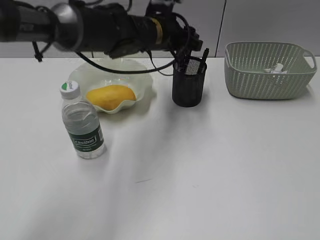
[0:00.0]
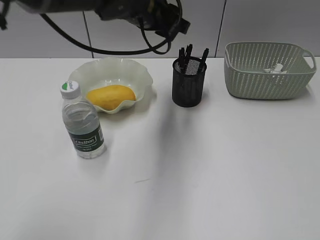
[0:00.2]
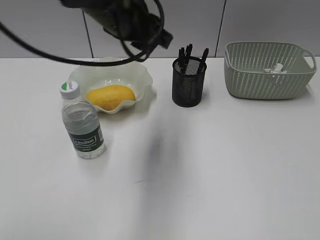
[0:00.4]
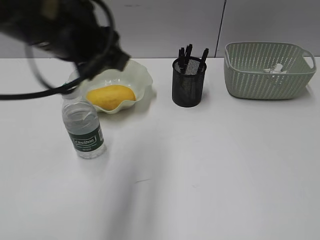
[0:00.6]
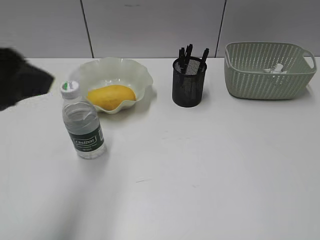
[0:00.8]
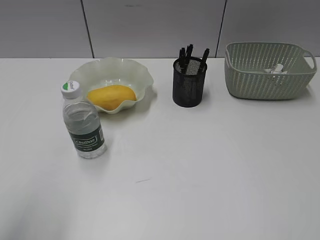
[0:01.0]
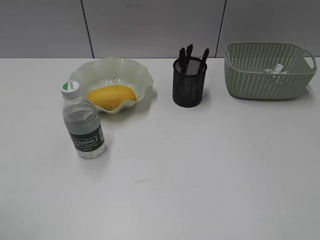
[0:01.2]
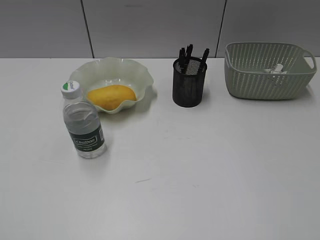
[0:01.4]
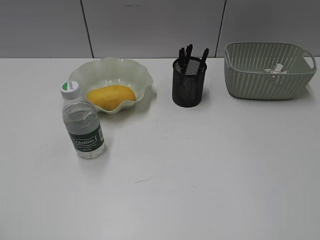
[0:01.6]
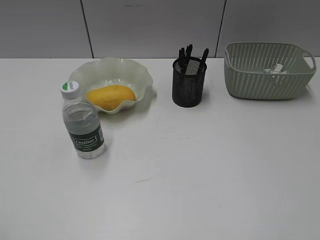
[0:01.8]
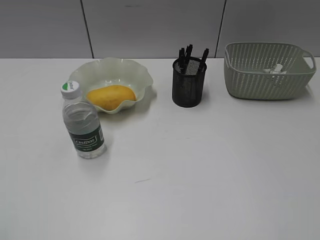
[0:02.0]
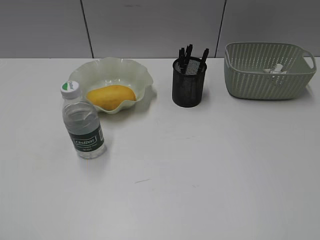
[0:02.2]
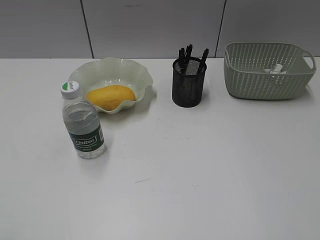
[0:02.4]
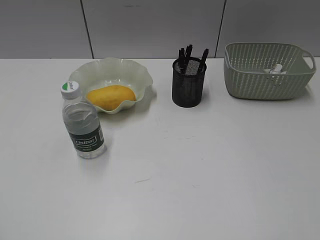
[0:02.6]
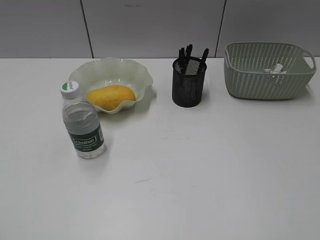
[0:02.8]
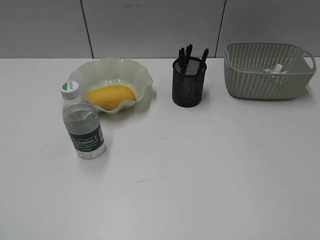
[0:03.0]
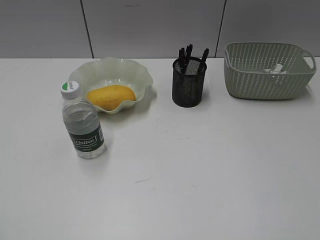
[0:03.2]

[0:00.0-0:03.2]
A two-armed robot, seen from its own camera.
0:00.0 to 0:01.6: The left gripper travels backward and to the left by about 50 cm; the right gripper opens up.
